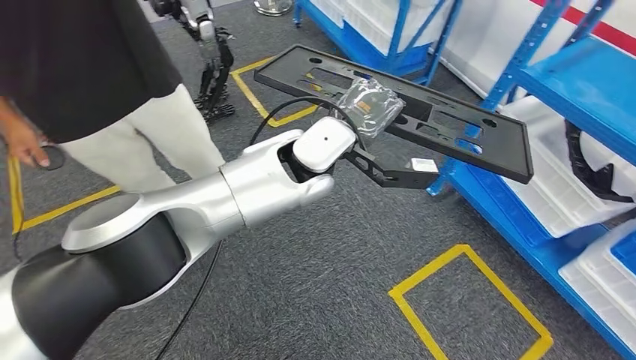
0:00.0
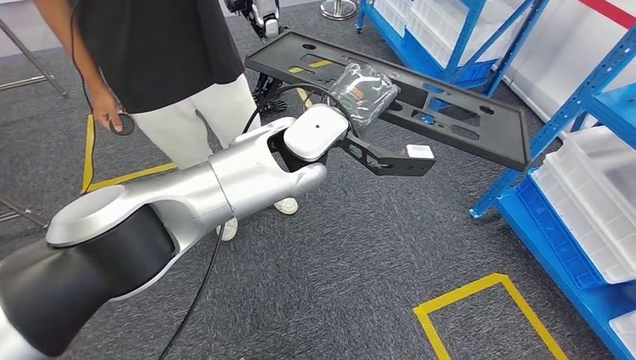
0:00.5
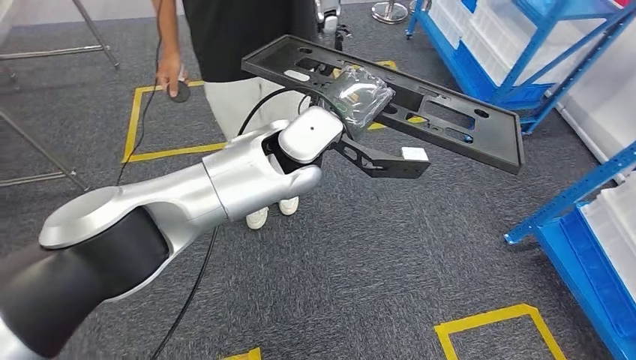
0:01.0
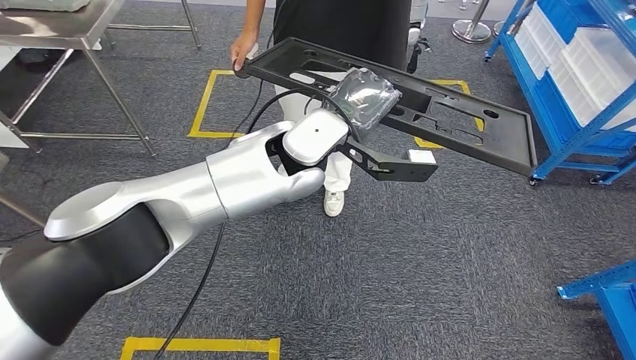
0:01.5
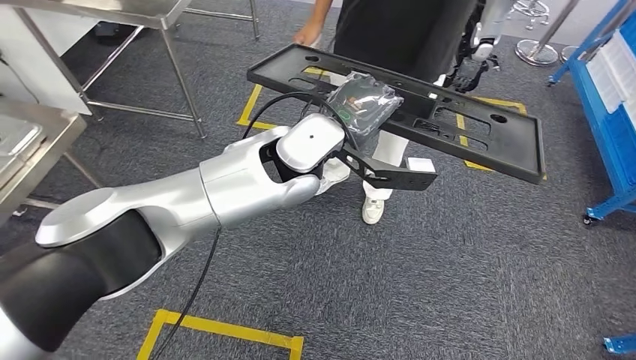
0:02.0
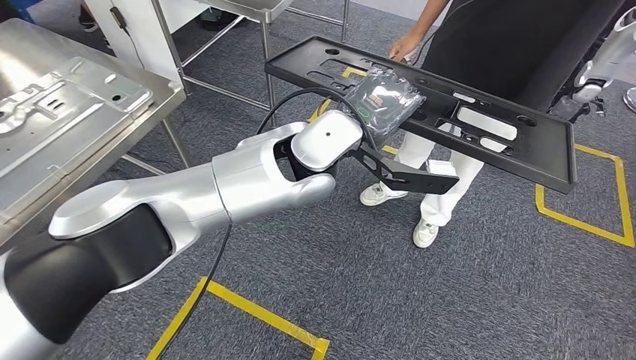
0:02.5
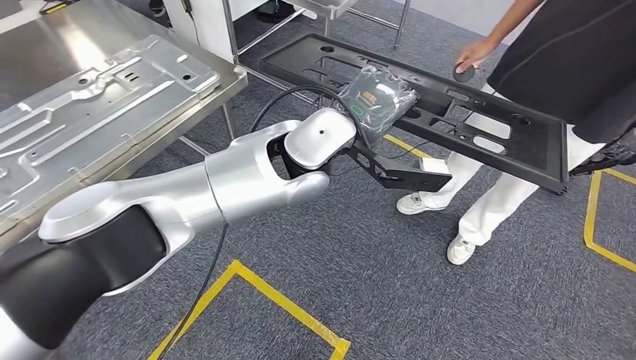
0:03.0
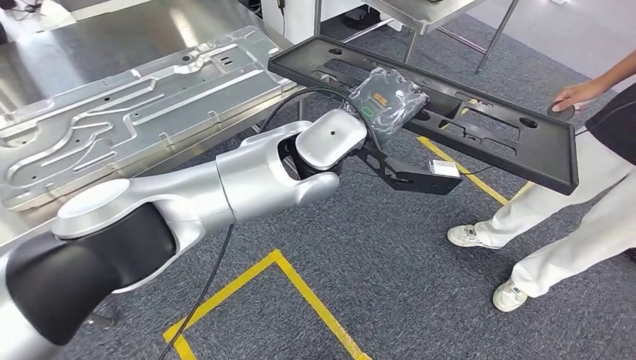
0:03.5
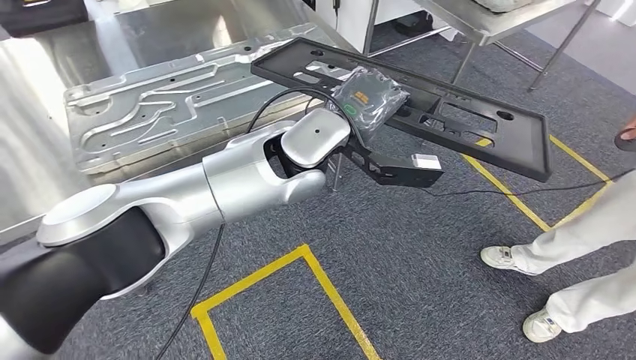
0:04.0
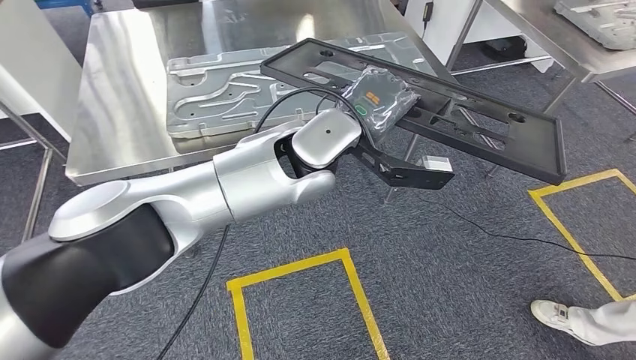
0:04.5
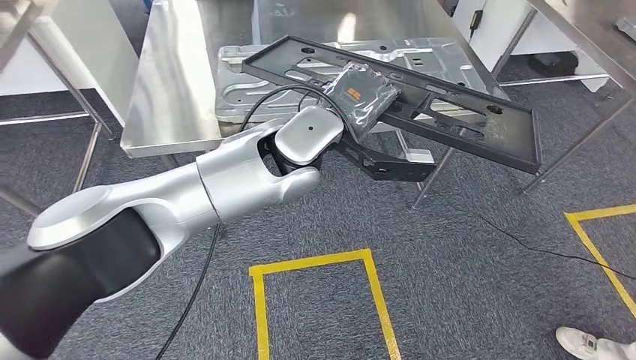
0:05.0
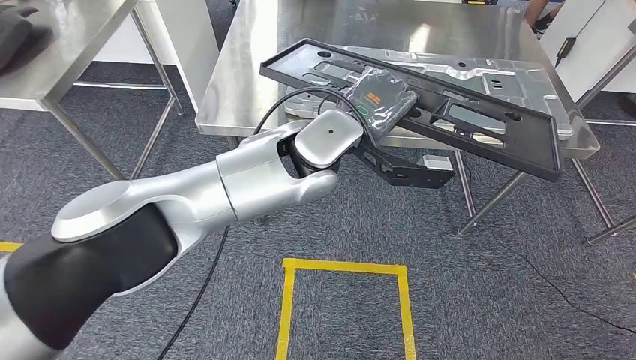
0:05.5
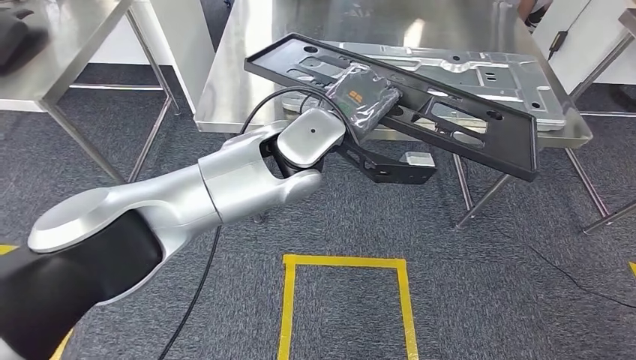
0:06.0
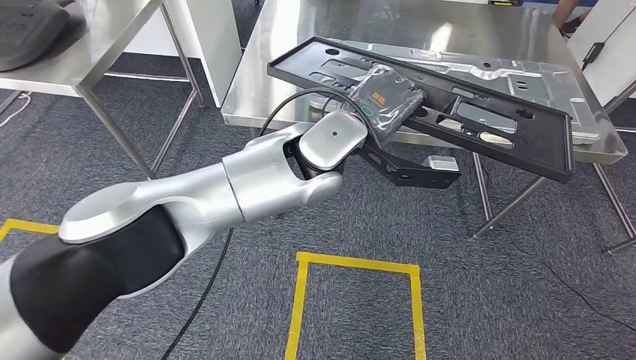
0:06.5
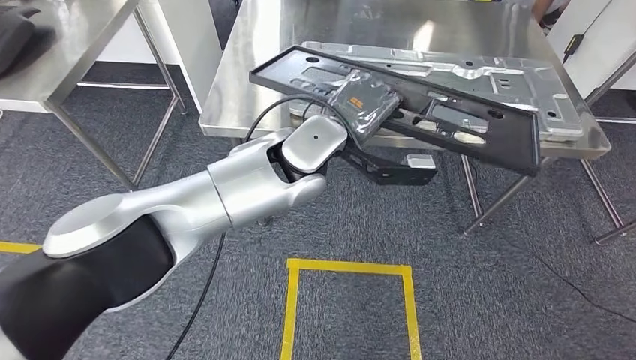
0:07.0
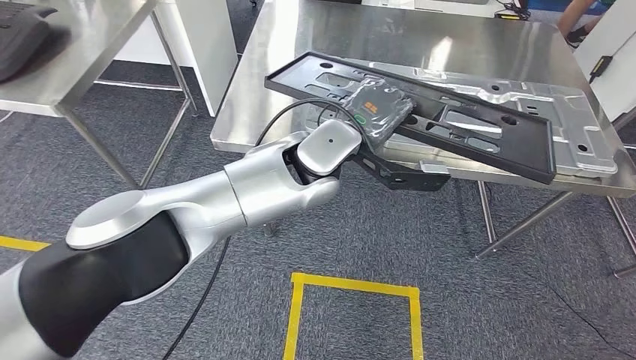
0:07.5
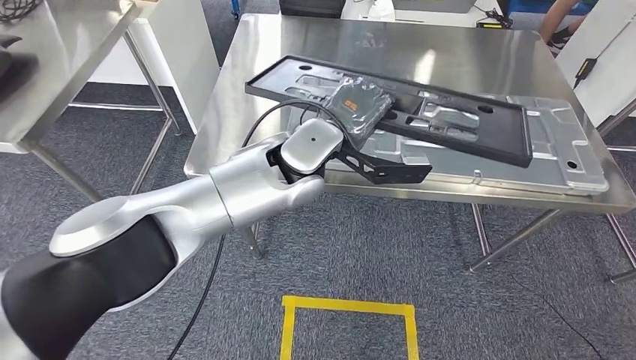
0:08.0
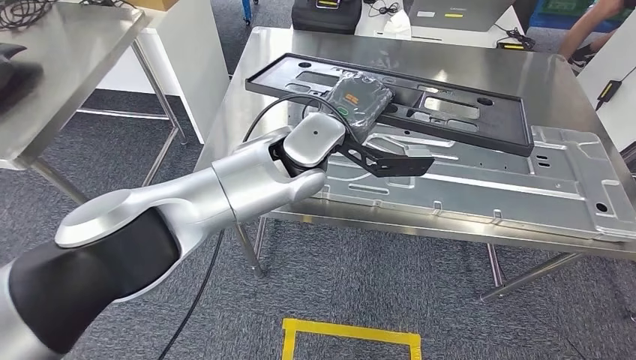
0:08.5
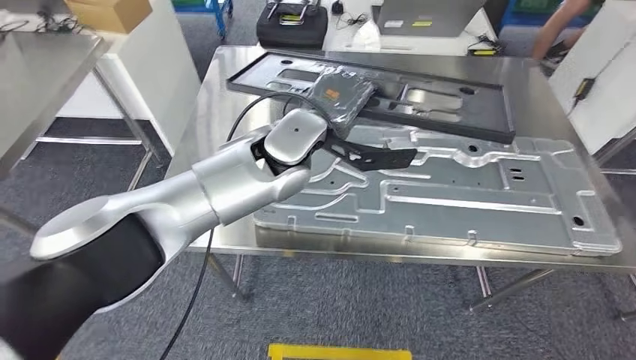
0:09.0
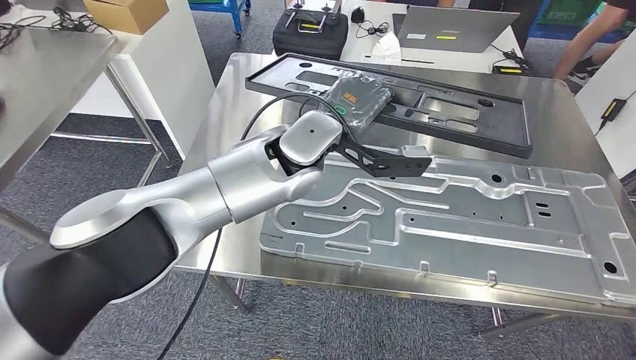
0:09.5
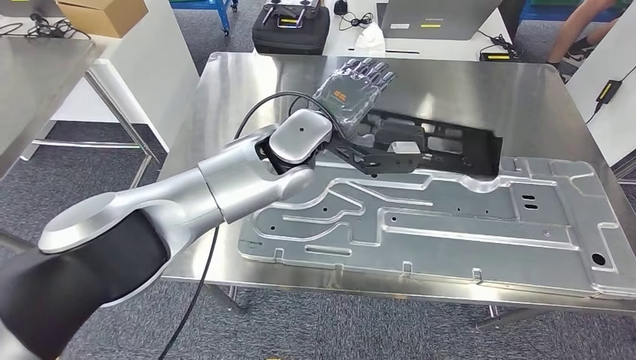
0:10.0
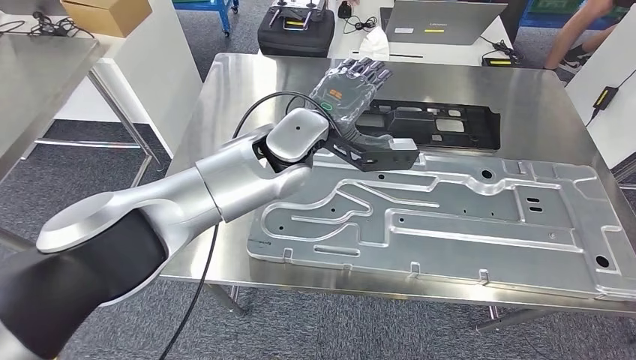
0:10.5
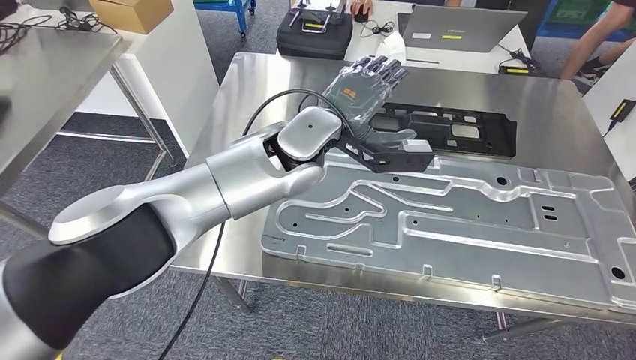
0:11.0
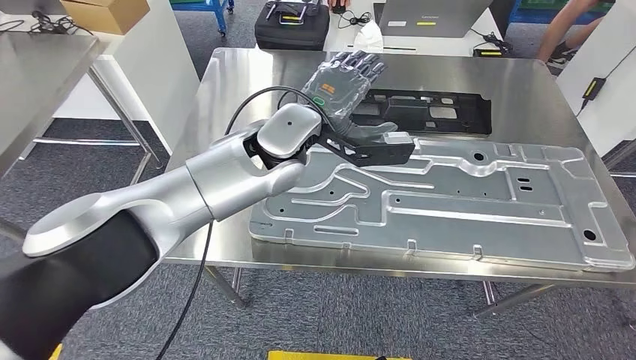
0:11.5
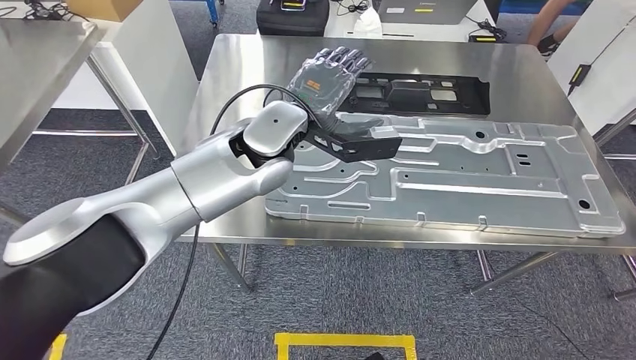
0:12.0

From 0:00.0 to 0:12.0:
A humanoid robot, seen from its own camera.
Step, from 0:00.0 to 0:07.5: Move the large material to the workbench.

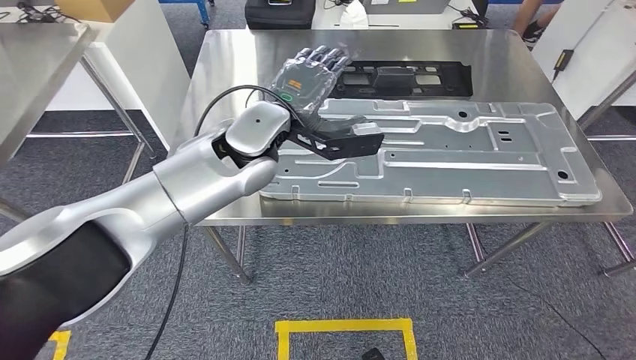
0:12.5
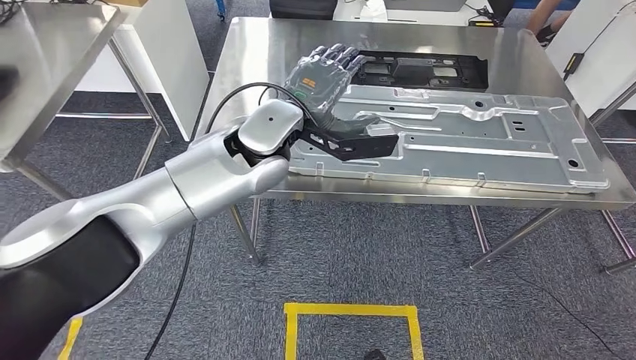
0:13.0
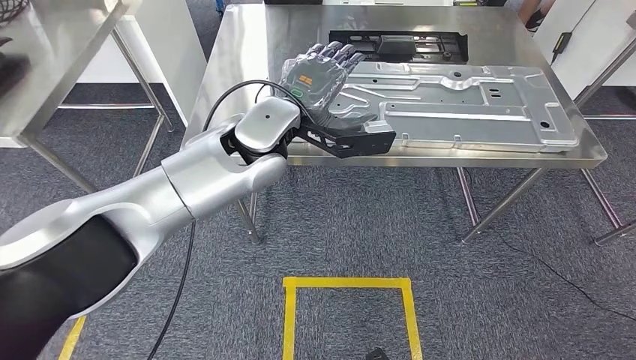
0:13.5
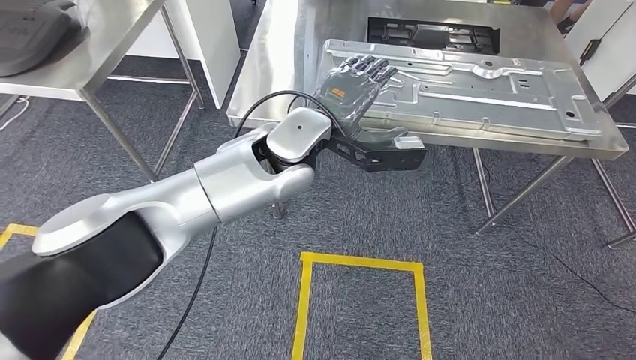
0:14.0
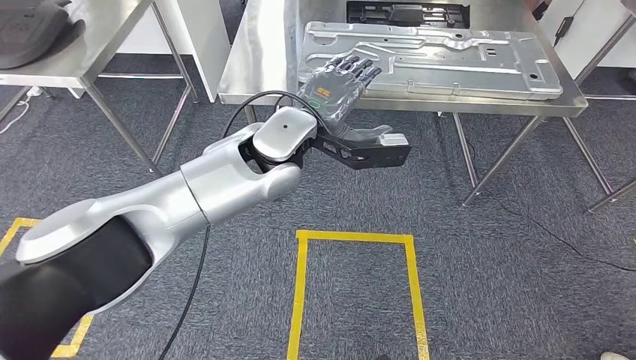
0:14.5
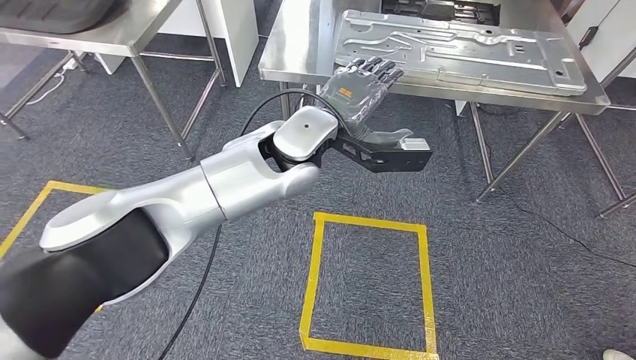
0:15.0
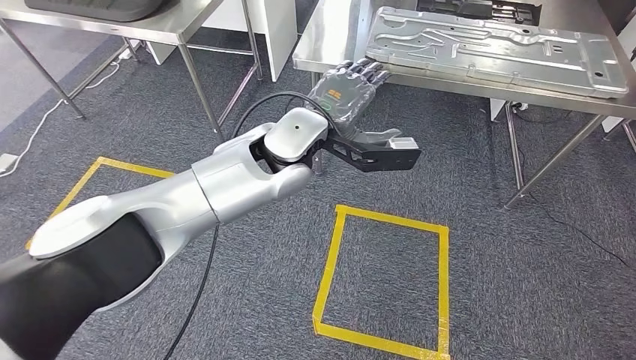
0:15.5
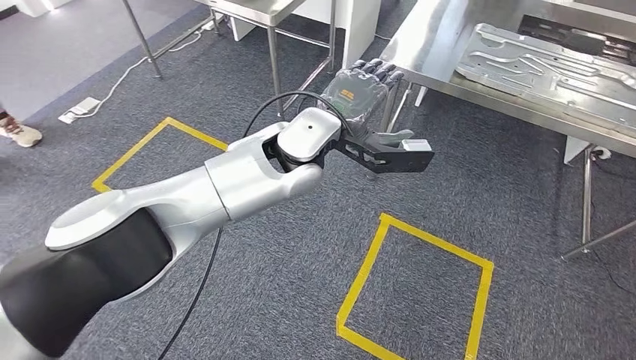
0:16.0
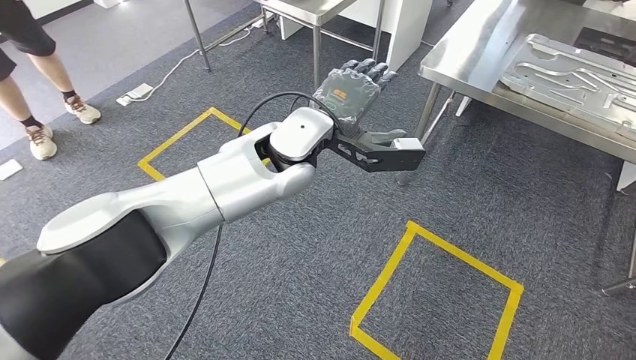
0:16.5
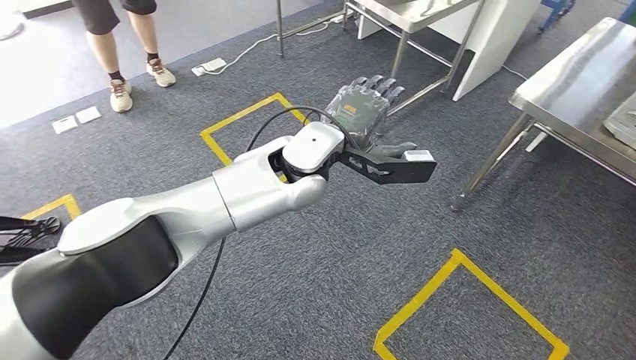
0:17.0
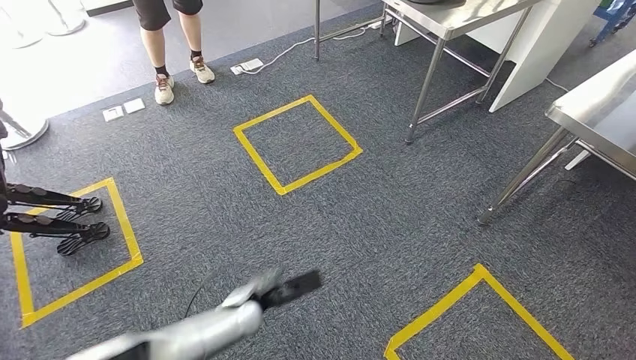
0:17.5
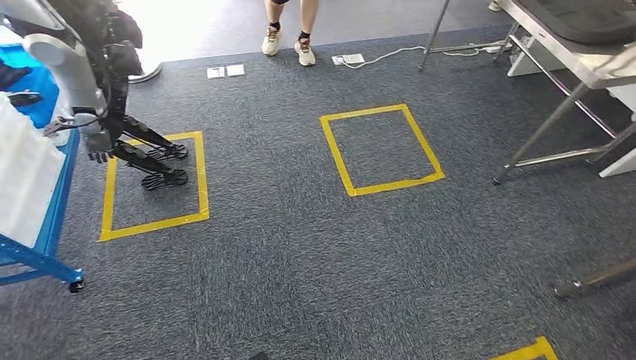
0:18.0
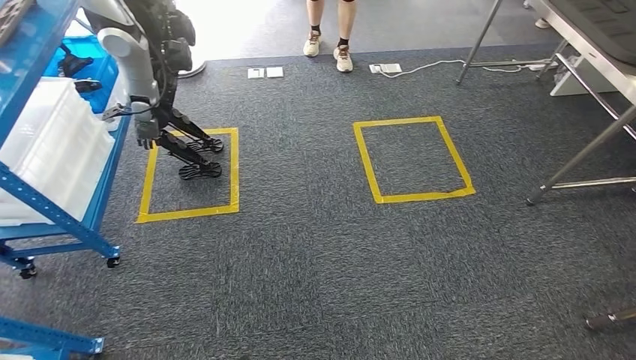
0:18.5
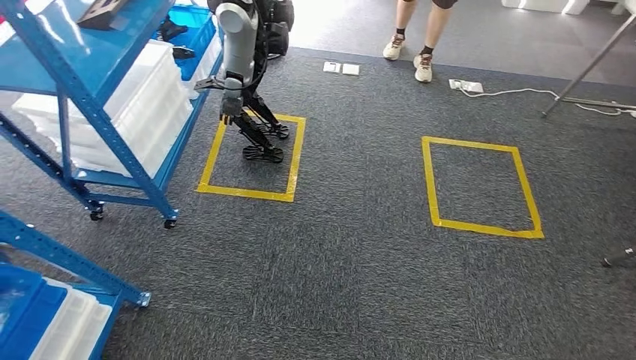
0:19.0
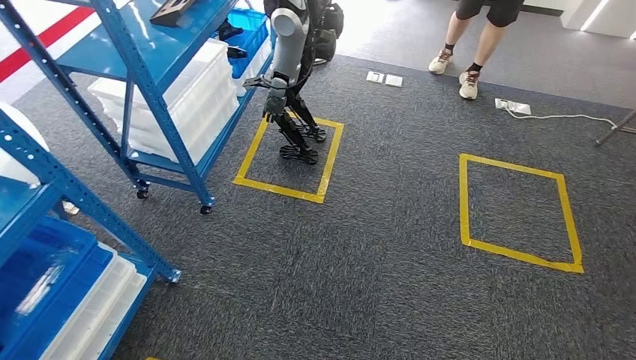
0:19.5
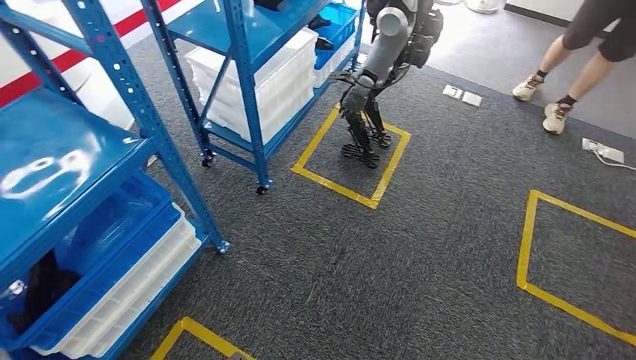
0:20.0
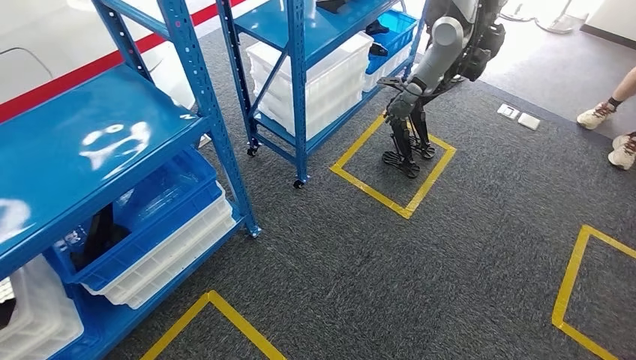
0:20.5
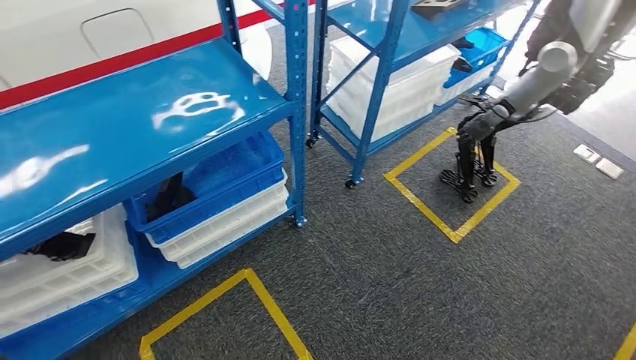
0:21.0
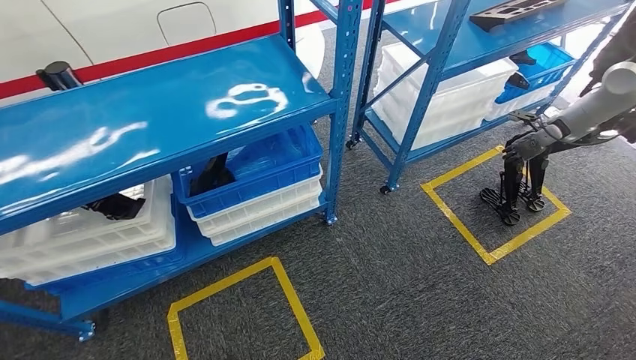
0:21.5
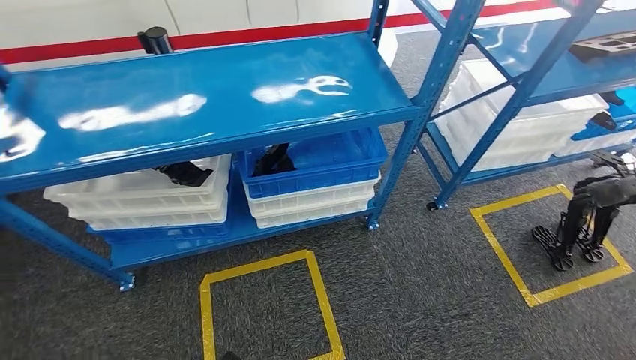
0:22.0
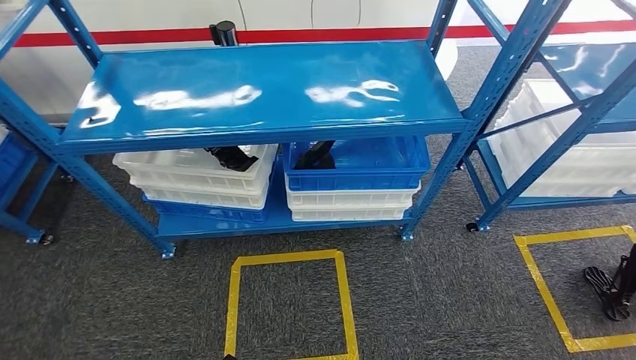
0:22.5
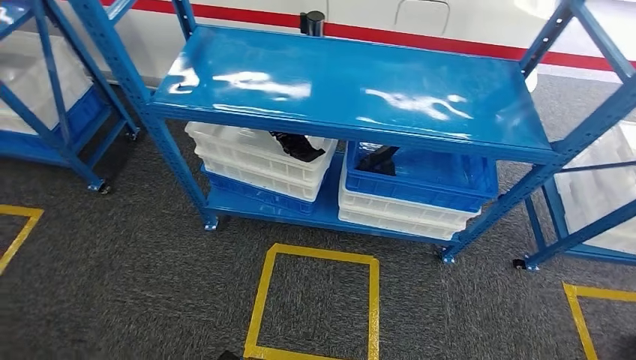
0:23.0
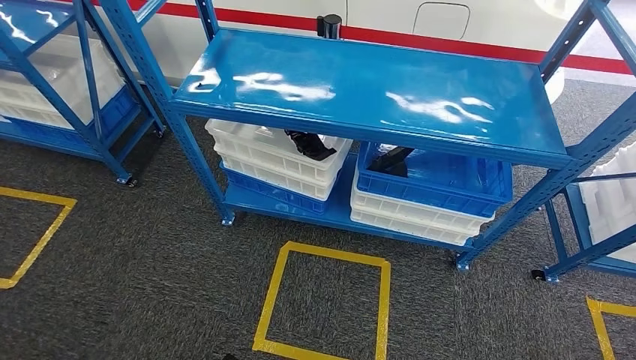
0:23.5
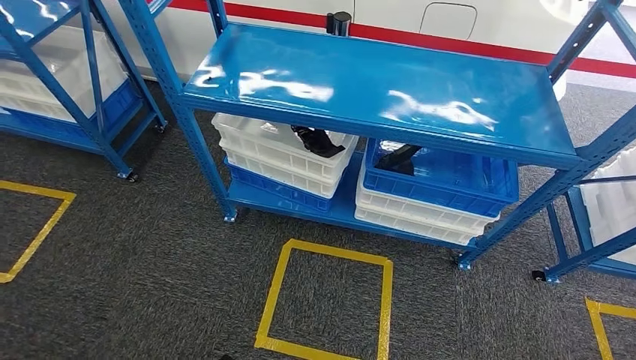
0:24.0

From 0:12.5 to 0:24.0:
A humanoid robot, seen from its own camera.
Step, from 0:12.5 to 0:14.5: Insert the large material into the corresponding slot on the workbench.
Step, from 0:15.0 to 0:23.5: Move to the initial position of the shelf.
